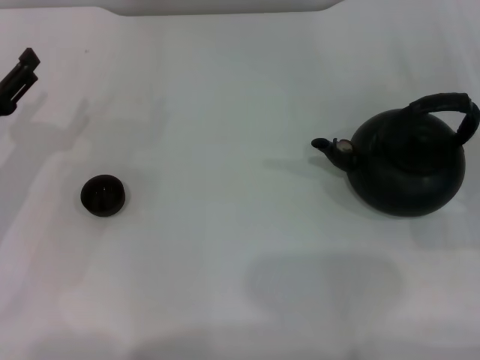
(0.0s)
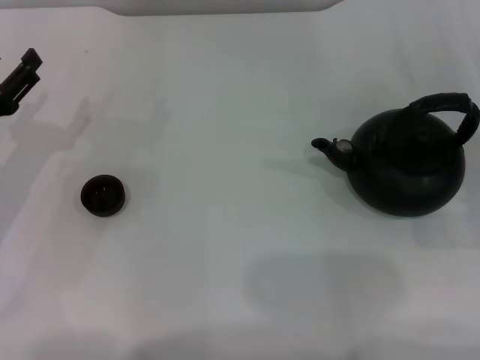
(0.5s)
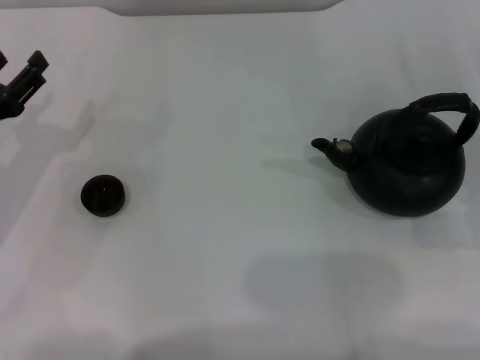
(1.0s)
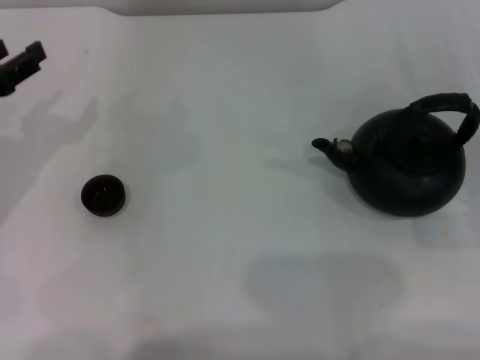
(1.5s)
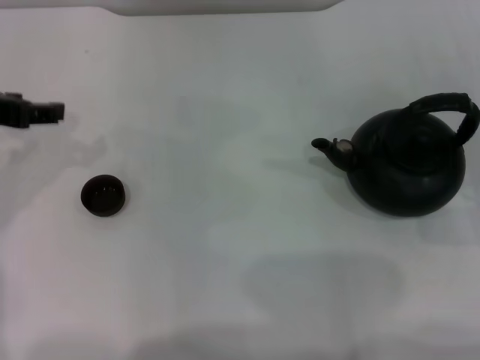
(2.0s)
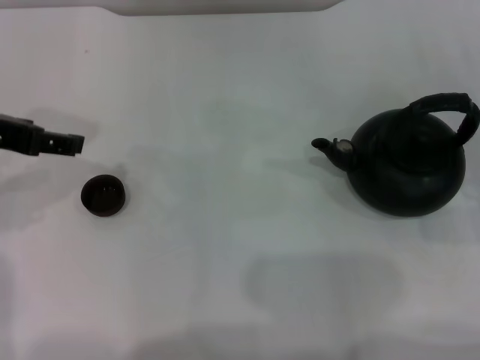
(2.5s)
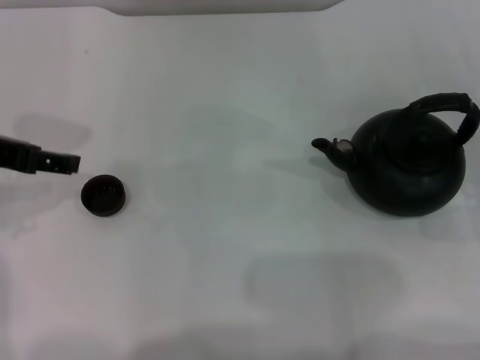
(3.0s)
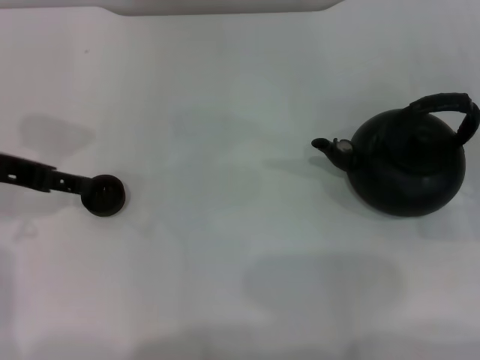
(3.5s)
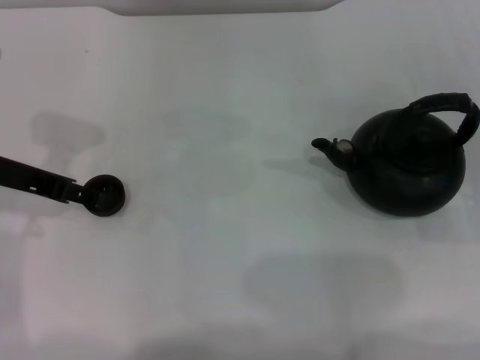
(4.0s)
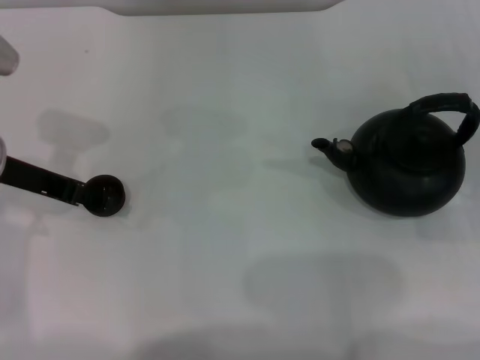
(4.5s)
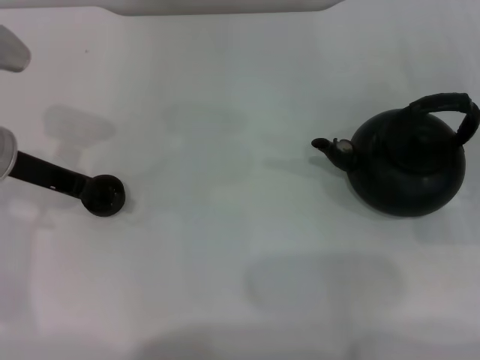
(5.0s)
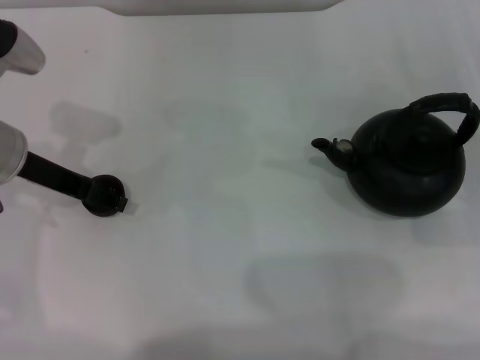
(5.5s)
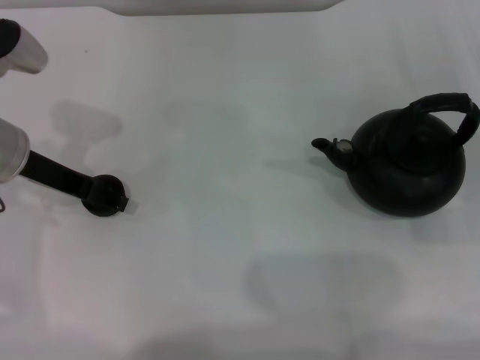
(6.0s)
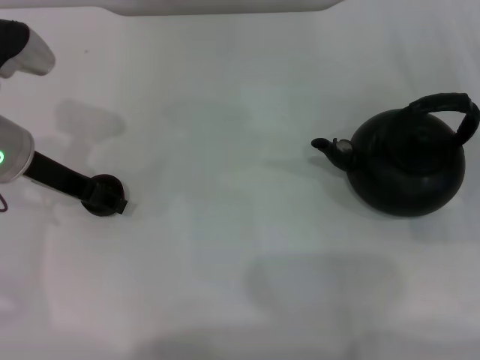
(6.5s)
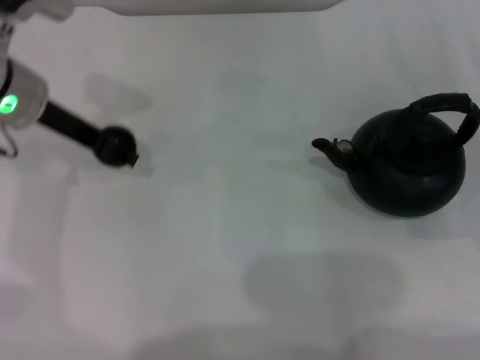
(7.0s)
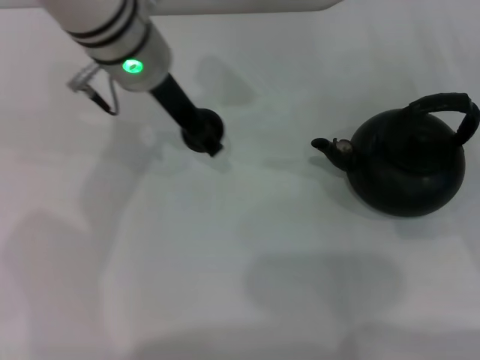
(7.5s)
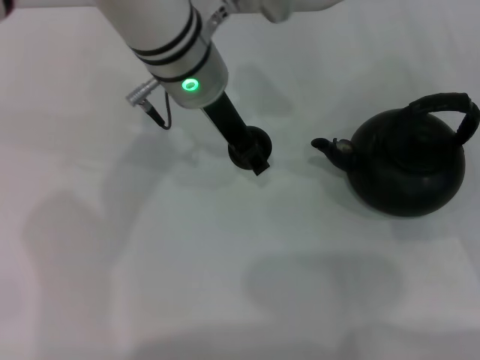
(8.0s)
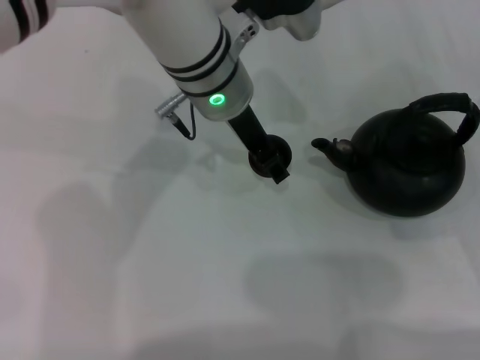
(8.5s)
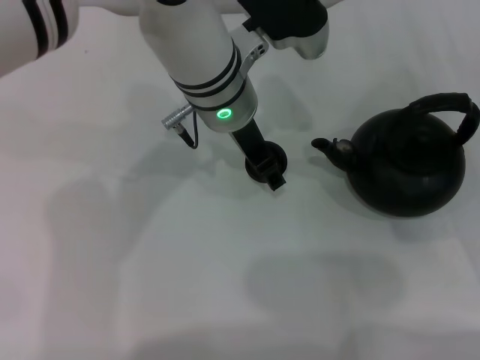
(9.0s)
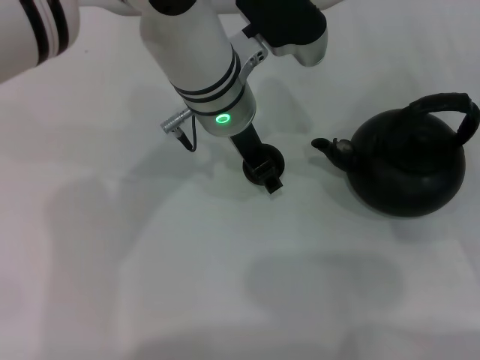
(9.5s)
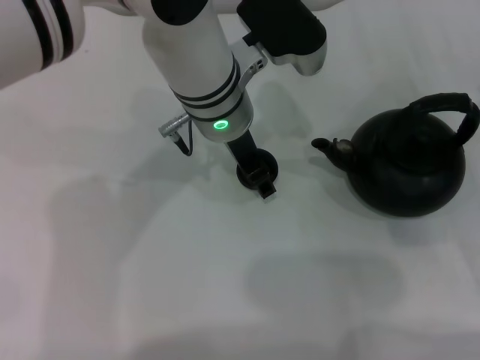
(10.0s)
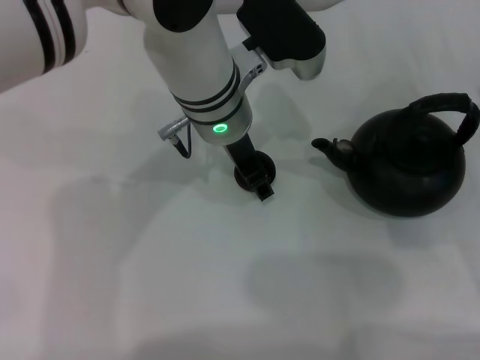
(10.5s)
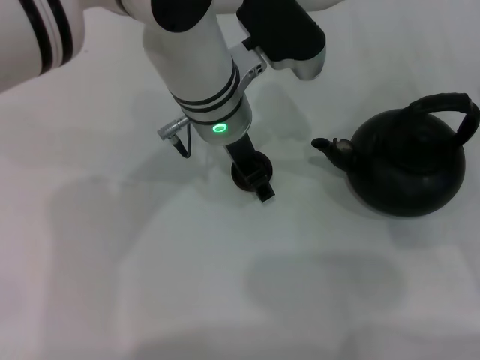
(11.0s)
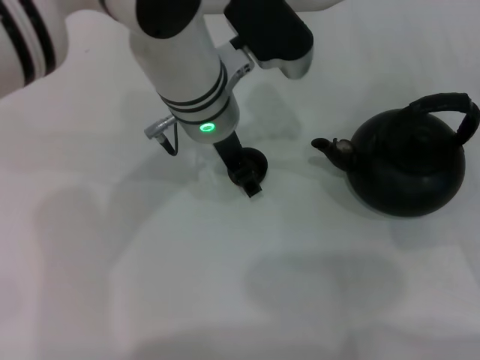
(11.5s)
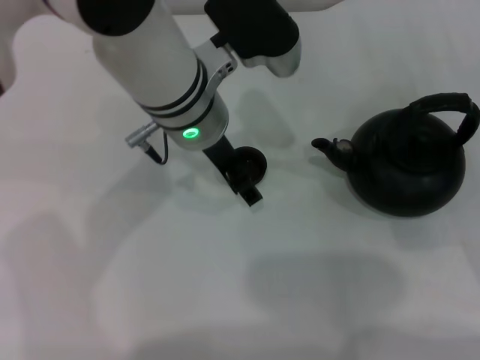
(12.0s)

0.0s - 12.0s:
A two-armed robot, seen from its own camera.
Task of the whole recording: Grasp the handle of the teapot with one hand and pour tea into the teacup.
Step, 0.0s - 7.0s: Pick up the teacup with the left gripper.
0.0s - 2.0s: The left gripper travels upward by approximately 15 cm, and closes.
2.0s - 4.0s: The left gripper opens.
4.0s - 6.0s: The grippers move only a little.
6.0s - 8.0s: The left gripper travels to the right by about 20 cm, and closes its fingers.
8.0s - 10.0s: The grippers move only a little.
10.0s - 12.0s: The left gripper opens up.

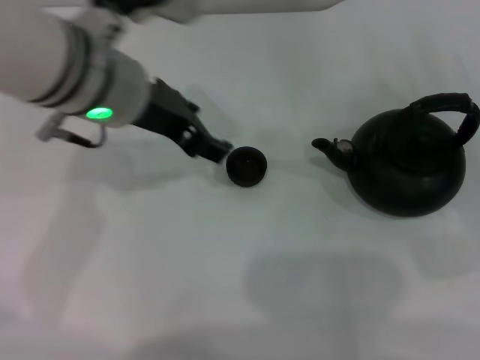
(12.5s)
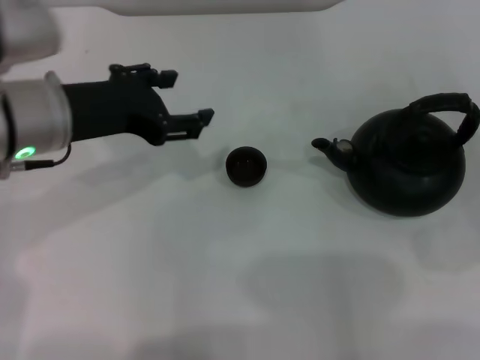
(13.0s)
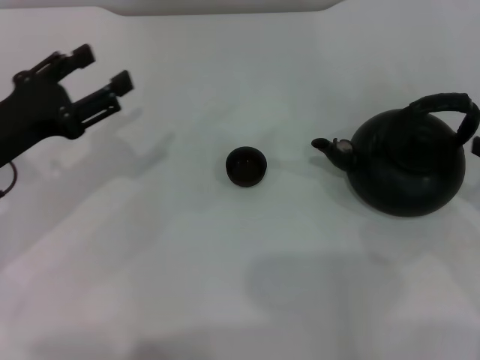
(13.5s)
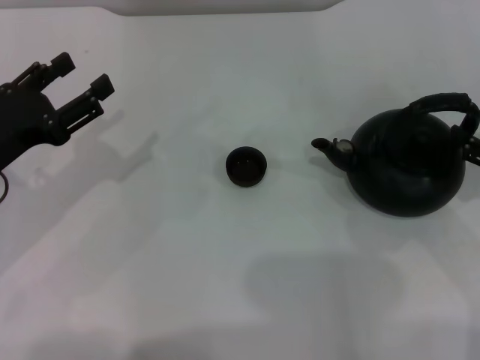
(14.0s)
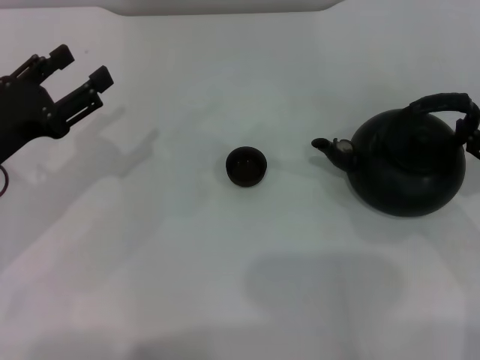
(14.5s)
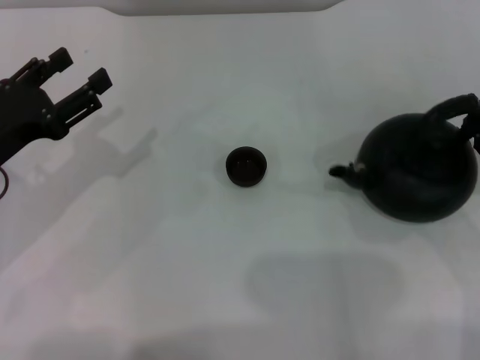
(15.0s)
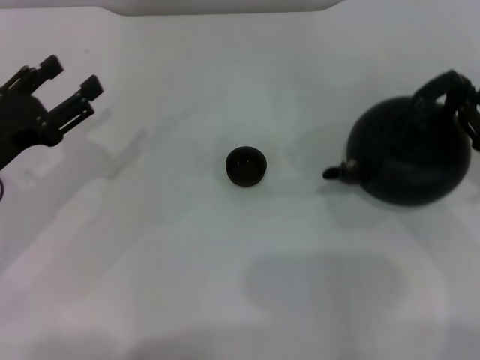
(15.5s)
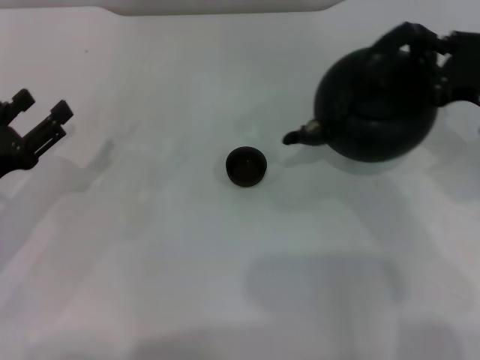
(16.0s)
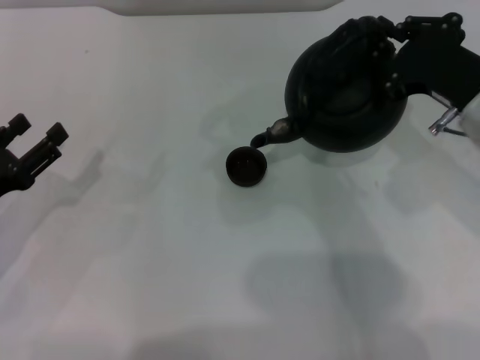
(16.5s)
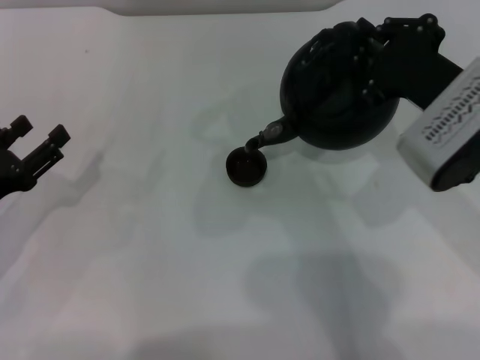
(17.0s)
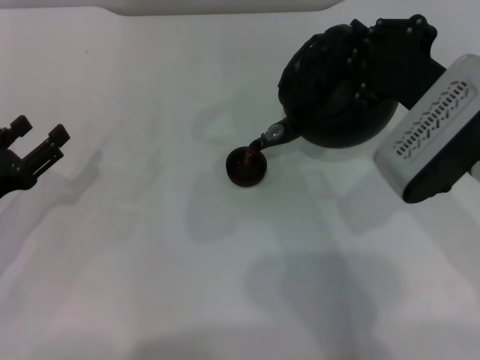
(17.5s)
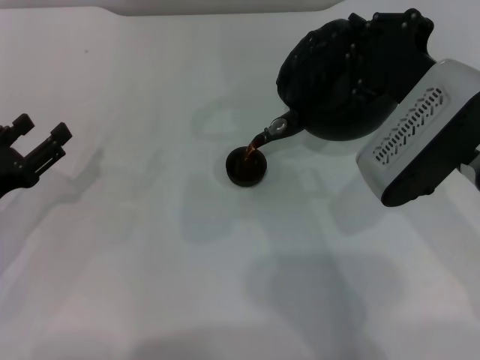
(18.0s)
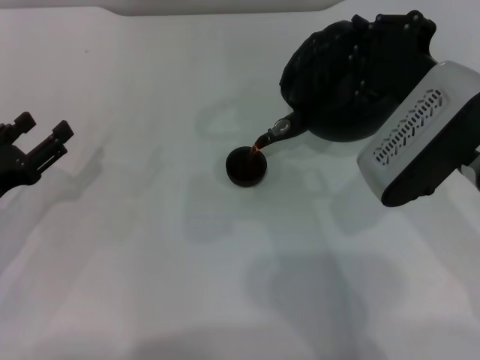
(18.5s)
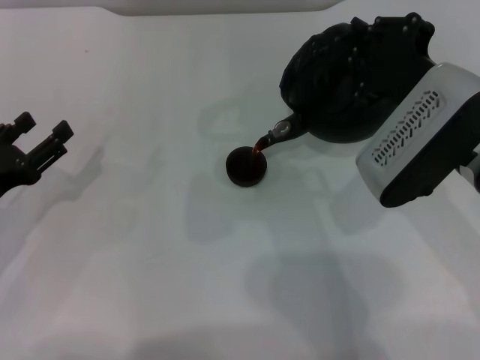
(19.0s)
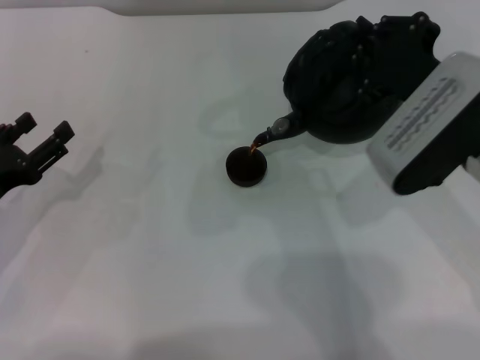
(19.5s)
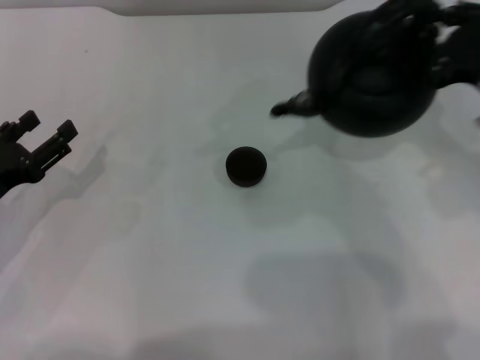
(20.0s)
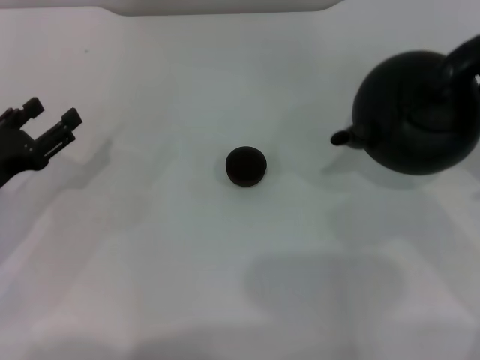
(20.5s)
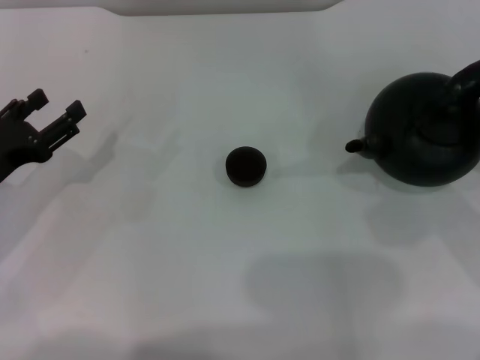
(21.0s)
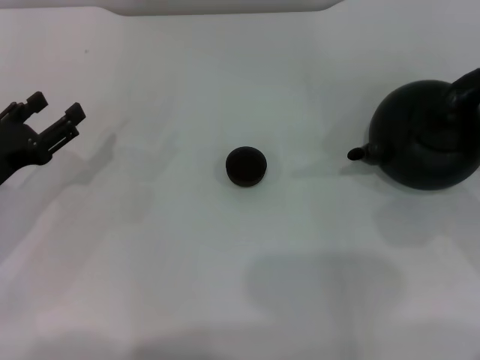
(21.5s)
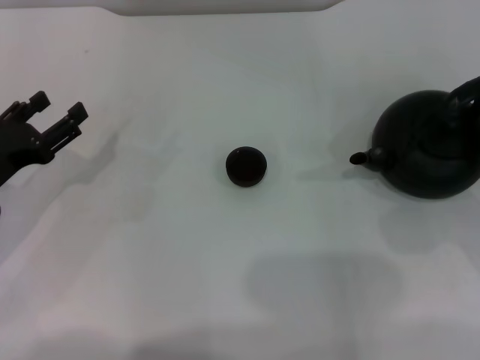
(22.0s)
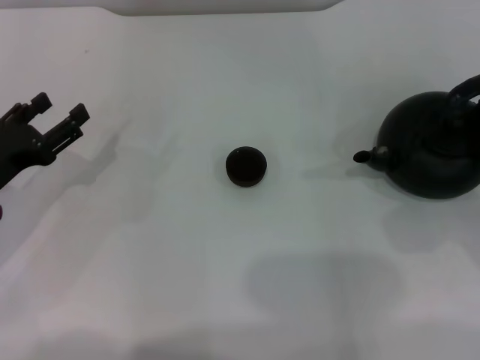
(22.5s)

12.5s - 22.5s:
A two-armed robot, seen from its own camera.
Task of the whole recording: Grasp the handle of the teapot with one hand and pour tea into the teacup.
Step, 12.5s - 15.5s: Pick up the teapot with the right gripper.
Step, 16.0s - 20.0s: Pour tea into the teacup with the right gripper.
12.5s - 14.5s: The right gripper moves approximately 5 cm, and closes its fingers. Meanwhile the left gripper travels to the left and downward by about 20 cm.
14.5s - 16.5s: The left gripper is displaced downward by some 5 cm, while the right gripper shifts approximately 10 cm to the left, and closes.
18.5s - 20.5s: The right gripper heads to the right, covering approximately 15 cm.
20.5s - 22.5s: The right gripper shifts about 5 cm downward.

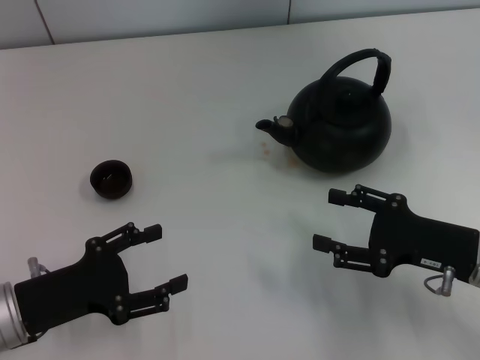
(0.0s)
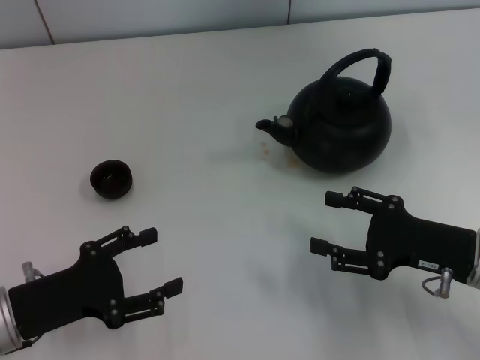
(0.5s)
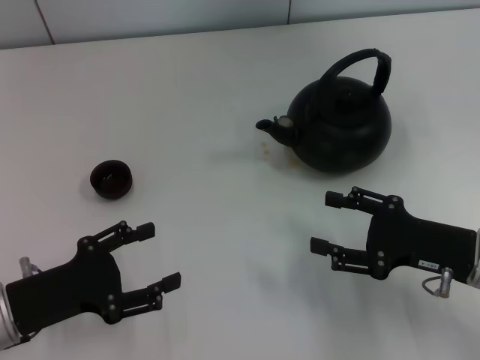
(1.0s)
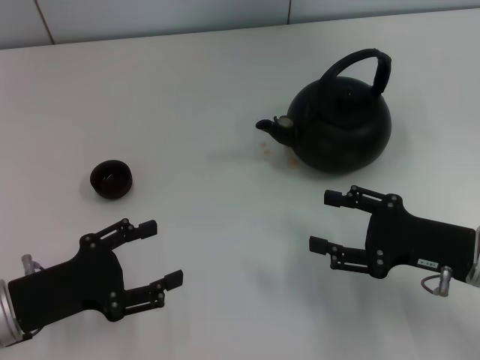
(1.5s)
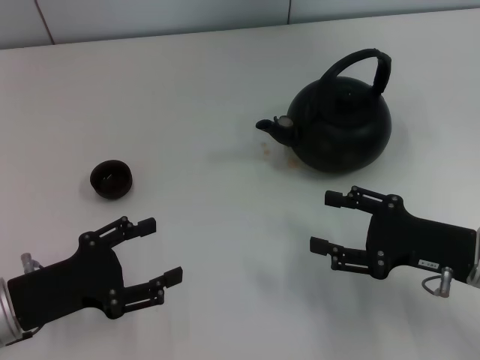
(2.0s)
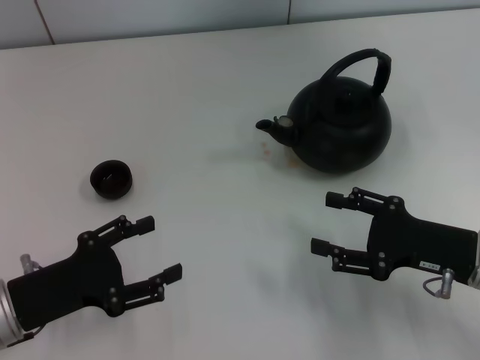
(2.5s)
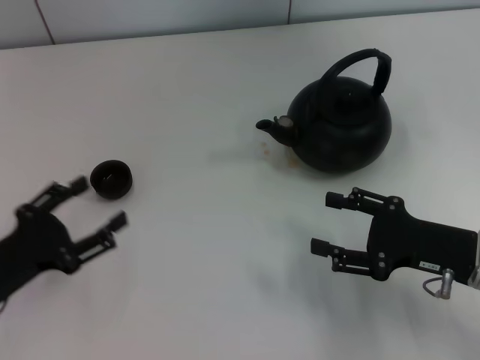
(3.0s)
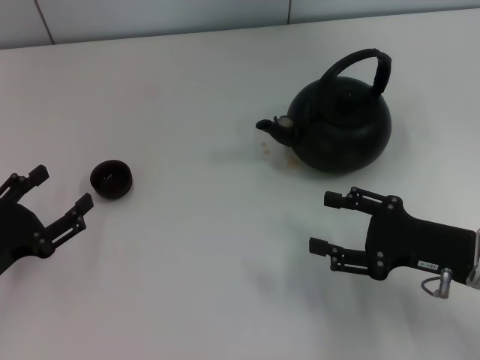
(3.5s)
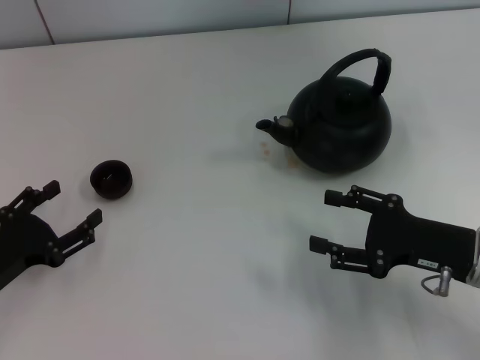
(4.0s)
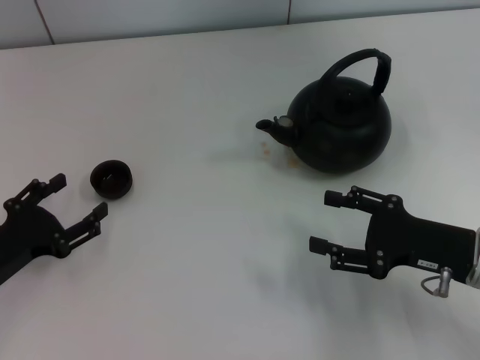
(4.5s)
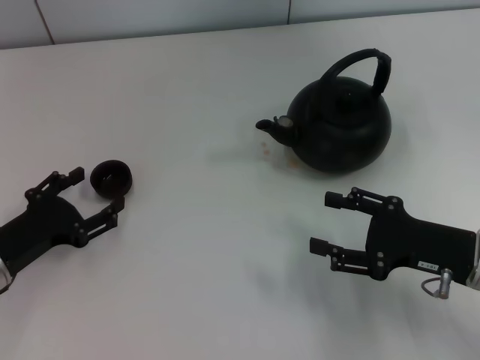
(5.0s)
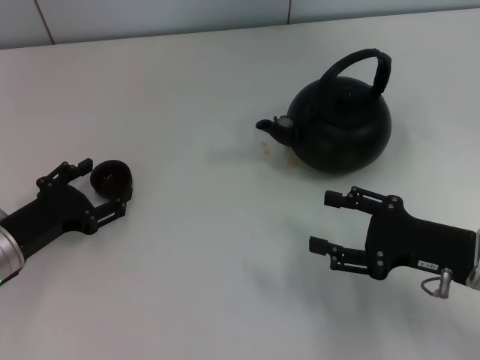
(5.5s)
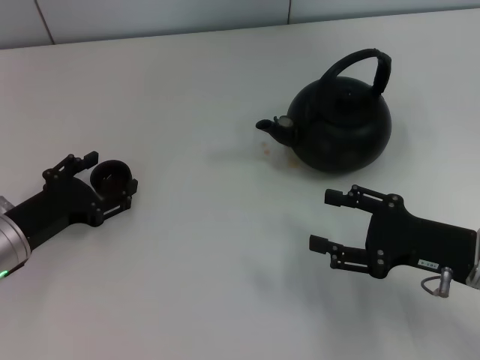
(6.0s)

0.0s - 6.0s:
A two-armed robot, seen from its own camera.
Task of the whole recording: Grasp the handle of the teapot with one hand and pour tea into the teacup.
0.0s - 2.0s: The two grippers keep their place.
4.0s - 6.0s: The left gripper moves forward, approximately 5 cm.
